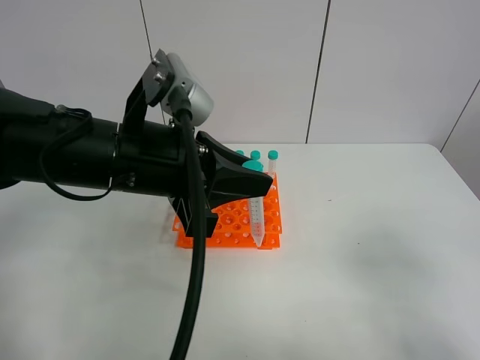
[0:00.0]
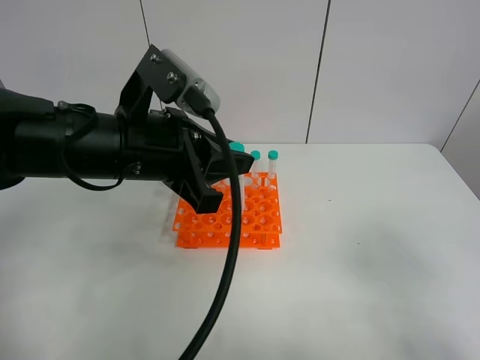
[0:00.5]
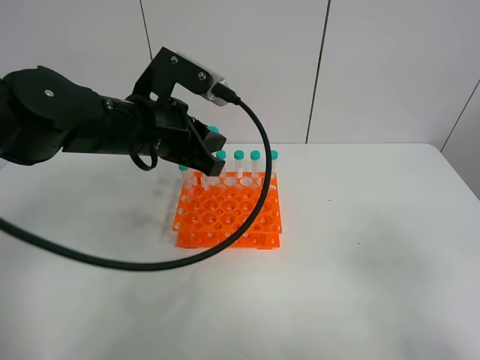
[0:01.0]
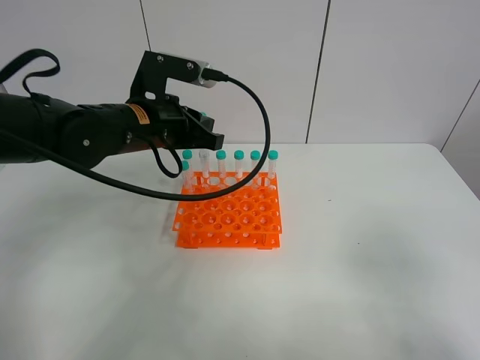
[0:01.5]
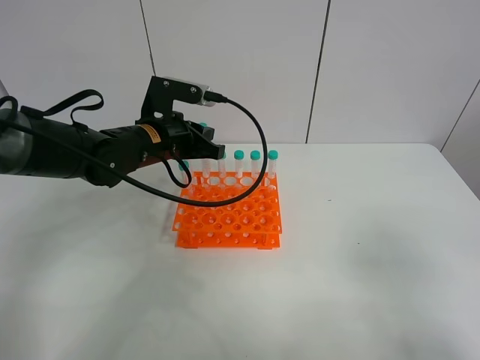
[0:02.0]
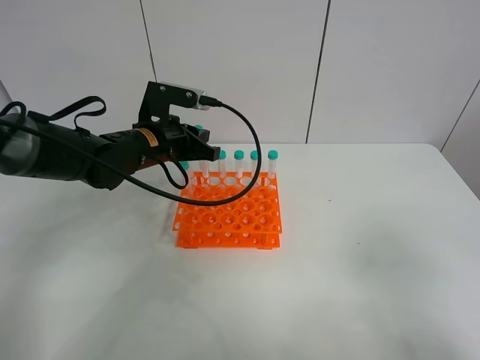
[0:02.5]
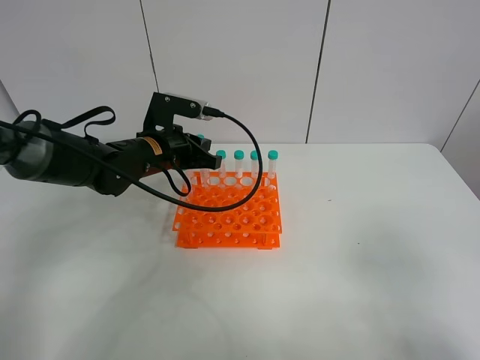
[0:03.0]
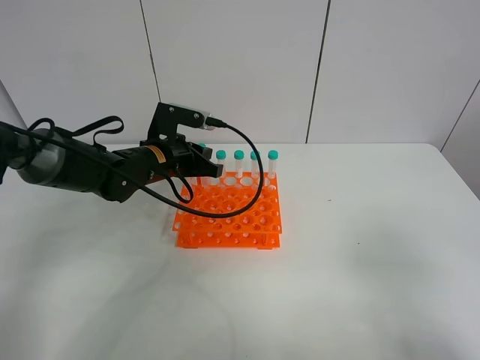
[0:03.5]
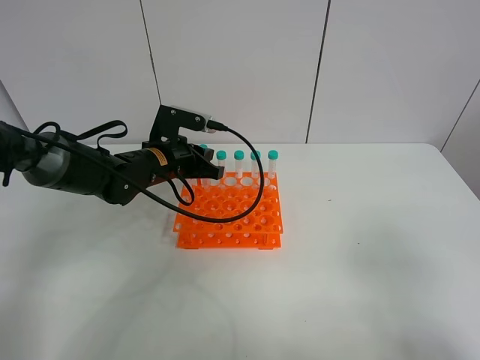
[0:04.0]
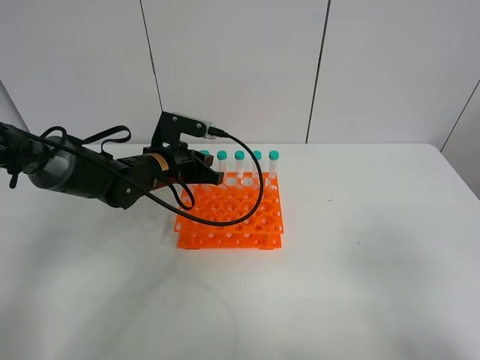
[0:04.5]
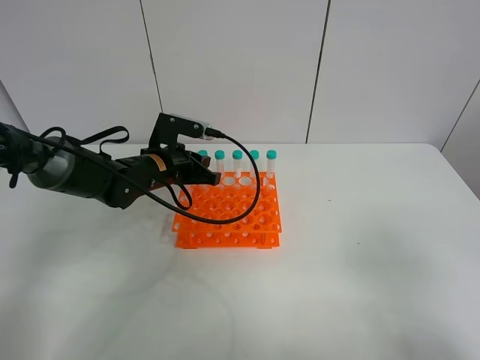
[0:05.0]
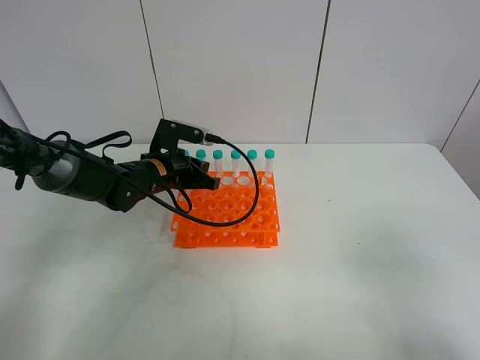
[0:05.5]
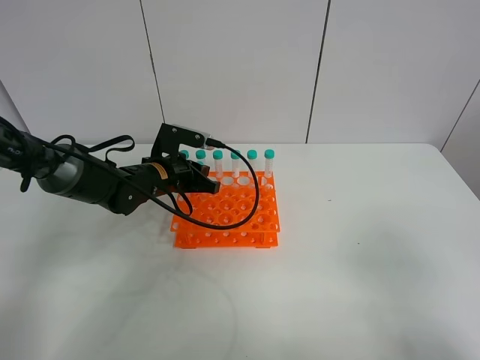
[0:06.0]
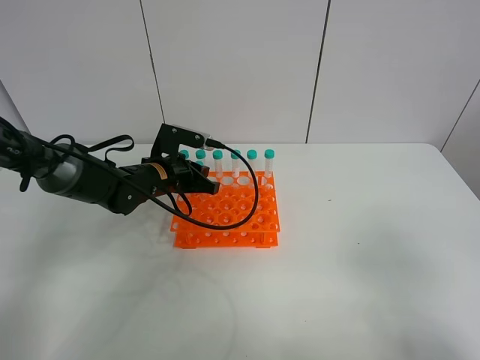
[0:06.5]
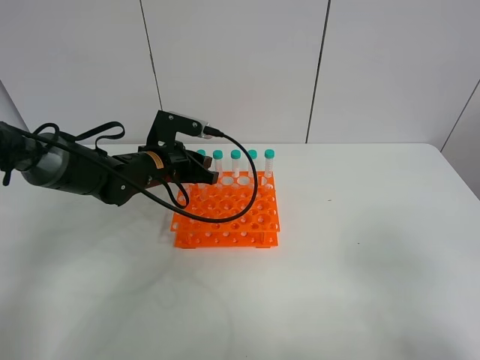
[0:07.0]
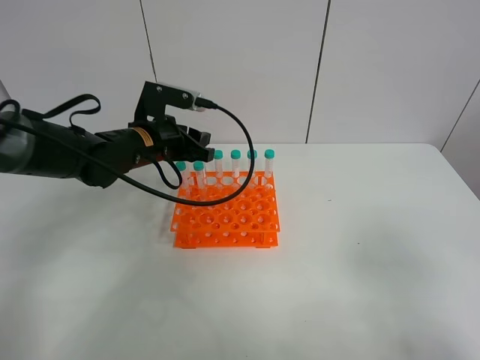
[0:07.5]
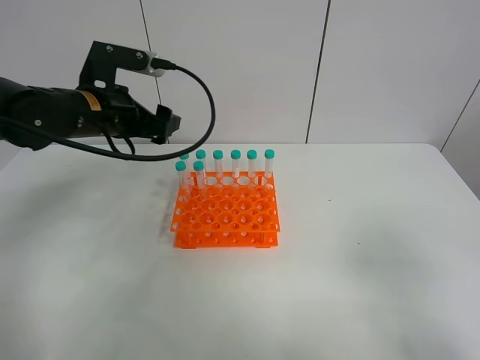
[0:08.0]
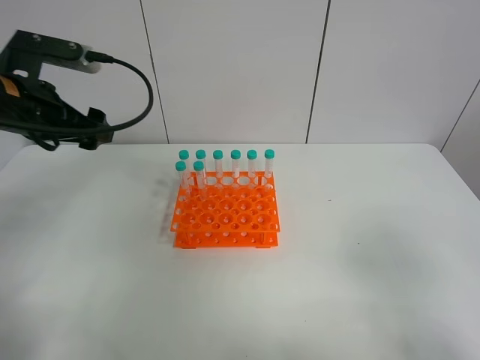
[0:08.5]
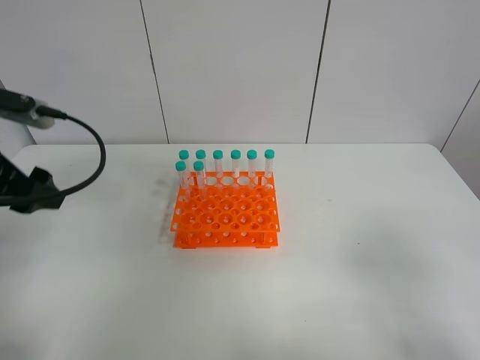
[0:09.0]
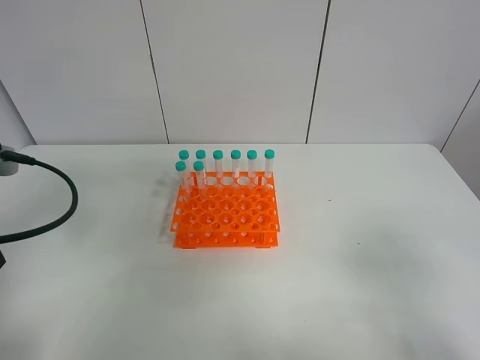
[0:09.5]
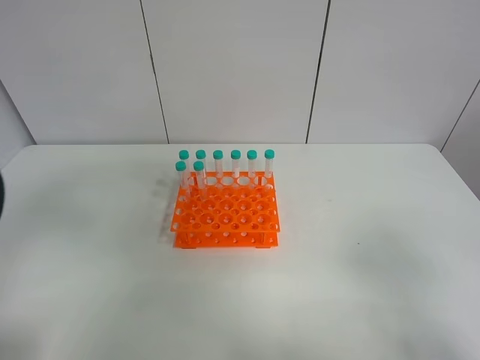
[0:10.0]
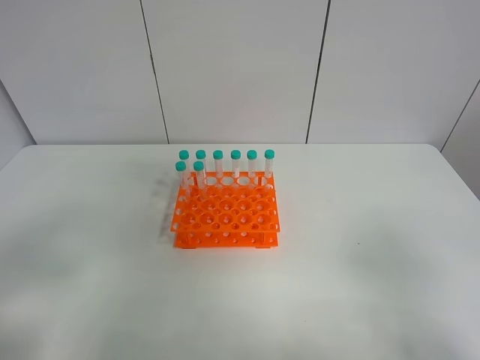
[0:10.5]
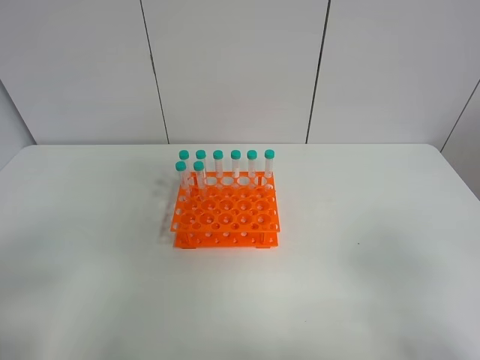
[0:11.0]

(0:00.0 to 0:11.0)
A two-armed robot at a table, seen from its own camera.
Task of the whole recording: Put the test tube on the table back onto the test tube rack.
Step, 0:00.0 - 0:08.0: Place the test tube on the test tube rack with the left gripper.
0:00.0 - 0:02.0: The left gripper goes approximately 15 cm forward and downward.
0:02.0 - 0:03.5: There are only small adjustments of the grippers.
0:03.5 - 0:05.5: The grippers move only a little.
0:05.5 - 0:07.5: The left gripper goes about 10 cm upward, and opens its fingers.
0:07.5 - 0:09.0: The left gripper is displaced to the left, backward and upward by about 20 cm, and opens up.
0:09.0 - 0:11.0: The left gripper heads backward, covering approximately 25 cm.

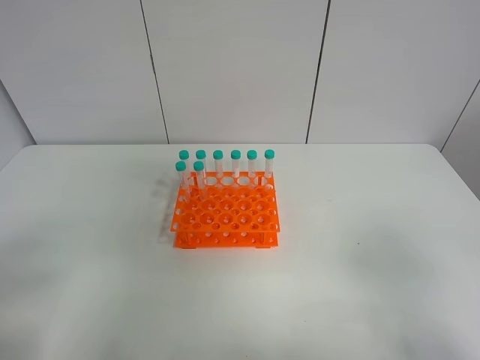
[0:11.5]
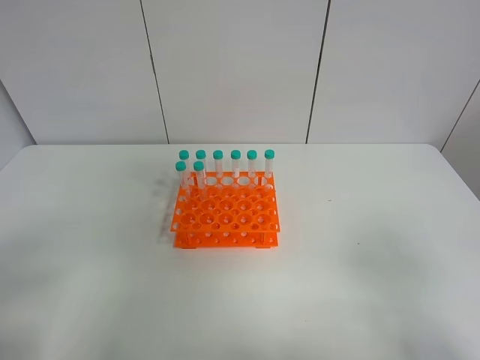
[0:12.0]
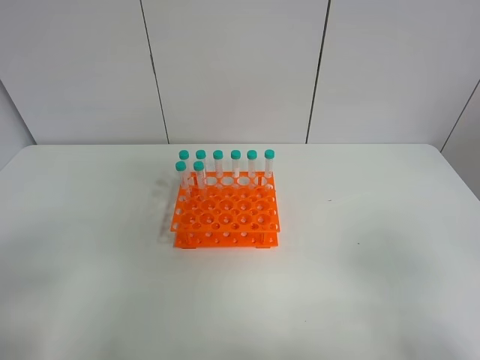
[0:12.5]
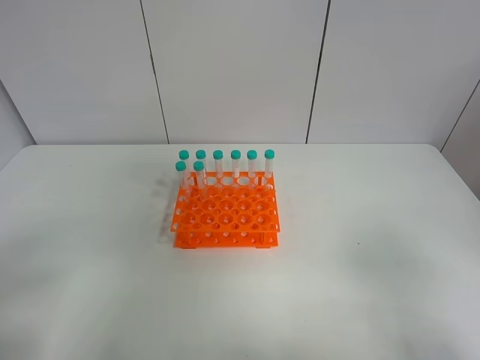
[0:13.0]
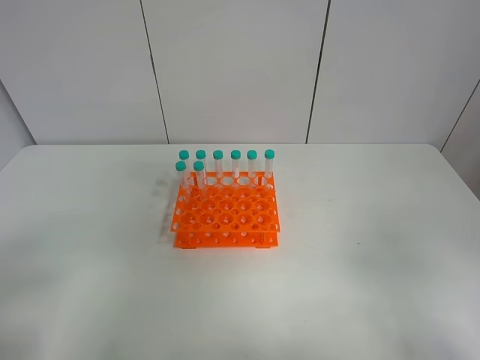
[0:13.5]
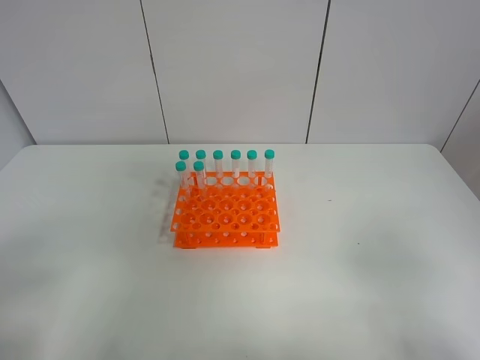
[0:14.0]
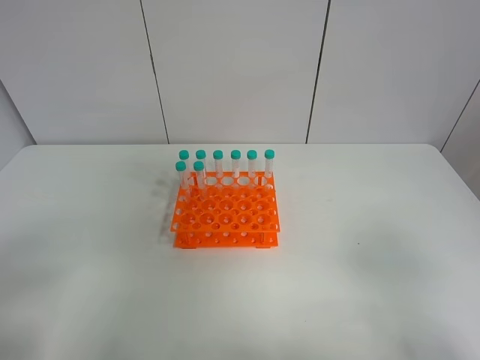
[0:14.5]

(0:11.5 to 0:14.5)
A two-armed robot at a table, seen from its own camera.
Task of the whole recording: Put the test tube on the table back onto the test tube rack.
0:11.5 - 0:14.5: Neither gripper changes place.

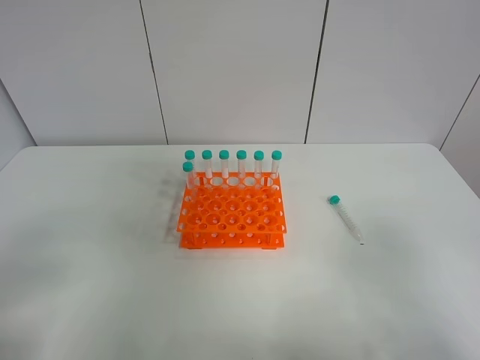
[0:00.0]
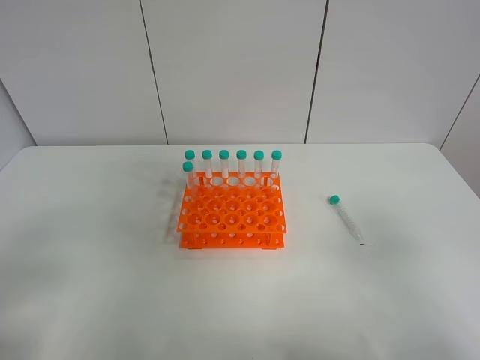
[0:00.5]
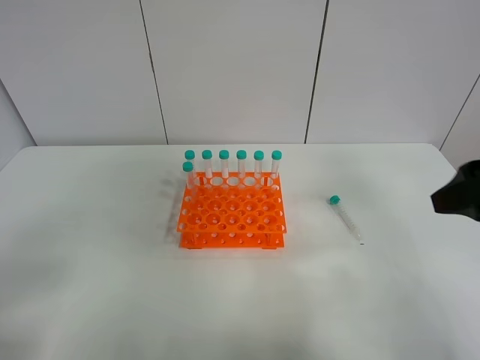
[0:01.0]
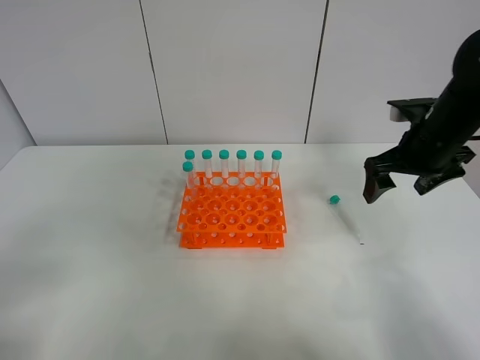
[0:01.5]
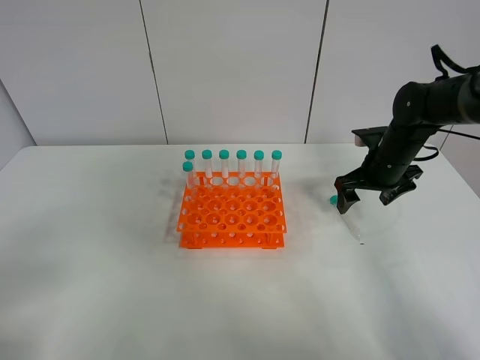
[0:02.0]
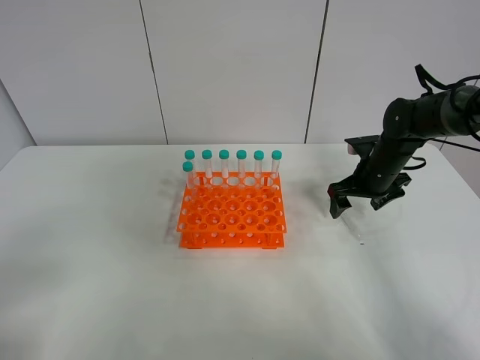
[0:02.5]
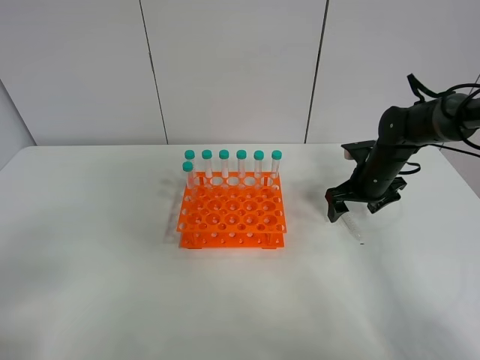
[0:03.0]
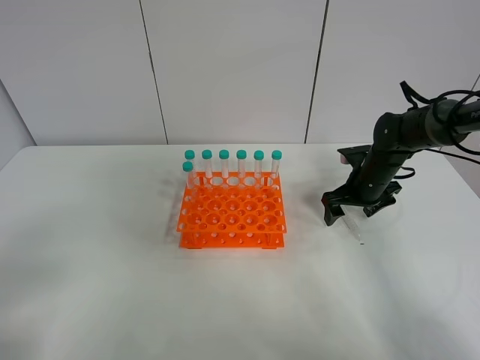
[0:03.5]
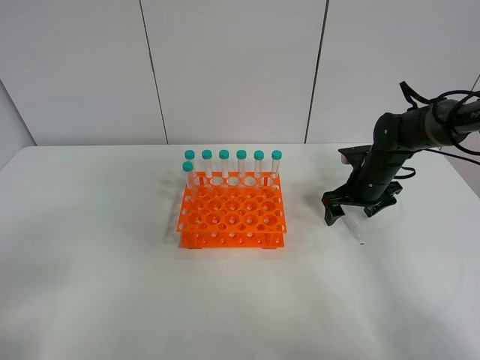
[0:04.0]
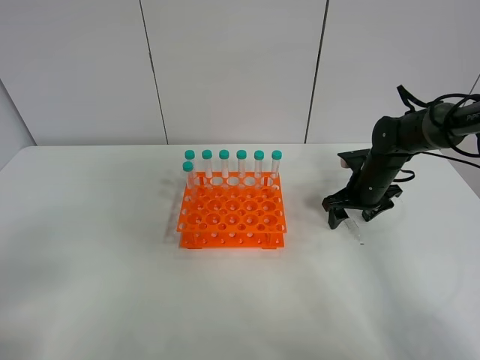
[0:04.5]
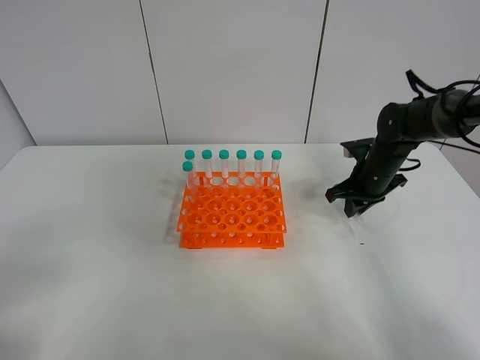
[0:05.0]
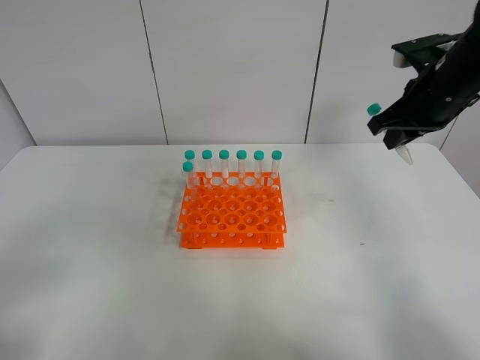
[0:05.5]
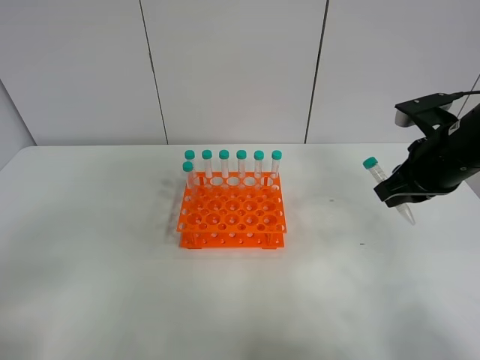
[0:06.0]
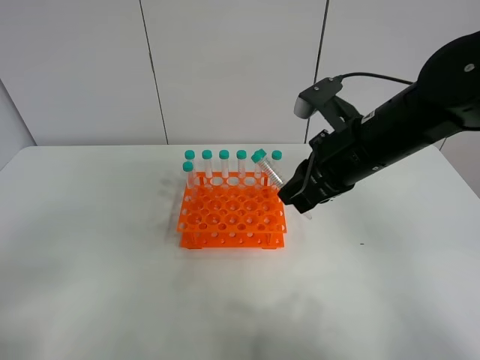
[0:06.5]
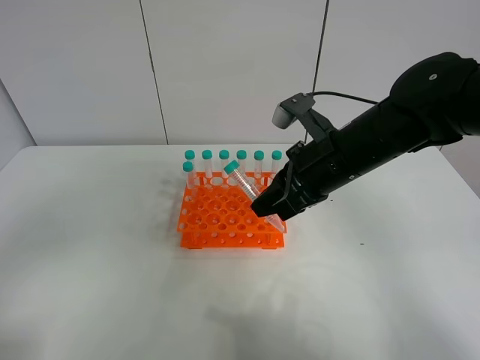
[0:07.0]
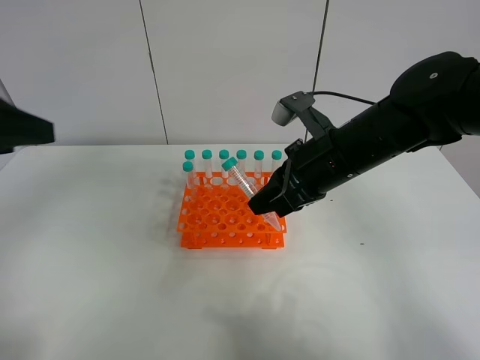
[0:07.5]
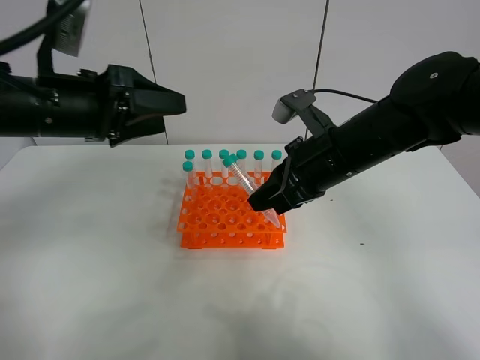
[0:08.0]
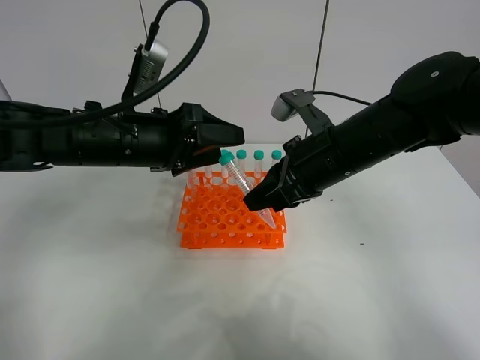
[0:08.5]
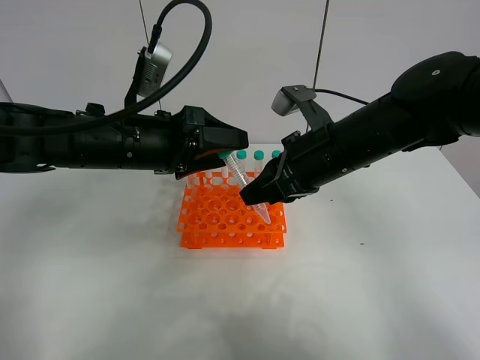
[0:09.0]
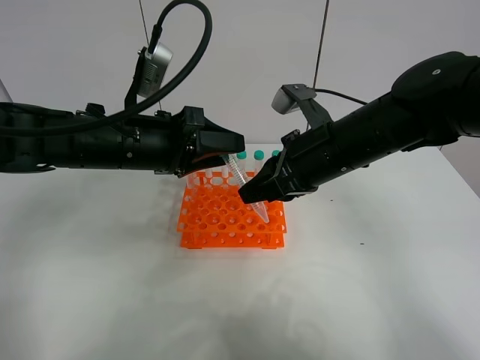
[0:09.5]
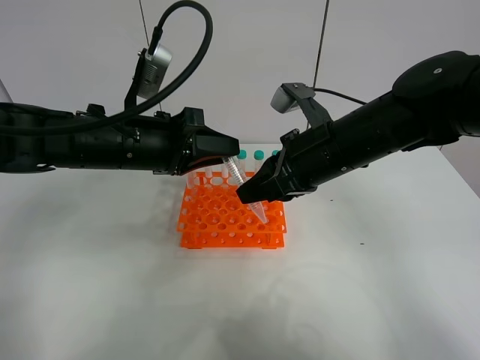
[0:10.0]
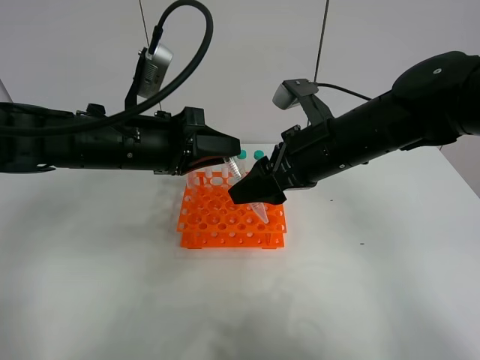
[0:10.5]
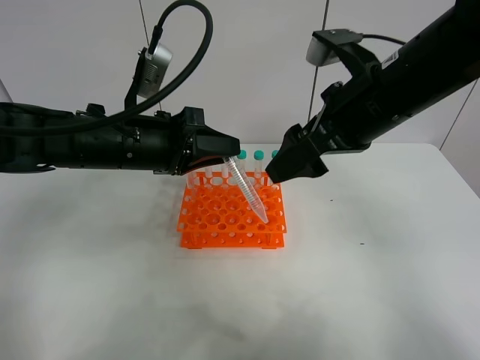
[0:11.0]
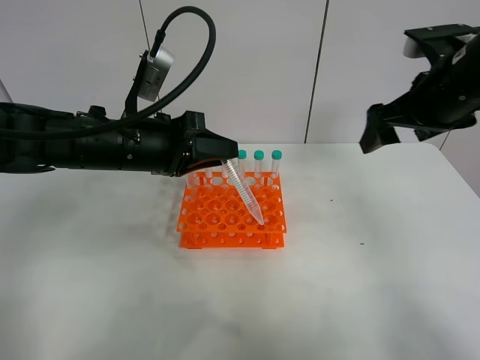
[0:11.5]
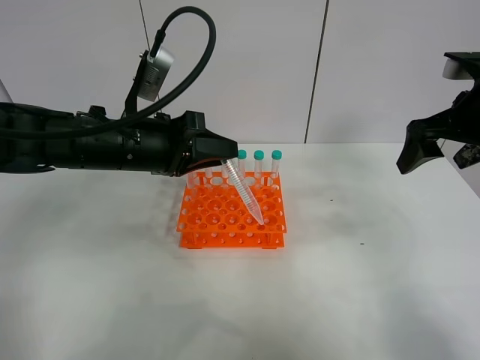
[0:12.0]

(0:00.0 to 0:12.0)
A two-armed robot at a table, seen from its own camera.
Task of the whole recording: Put the test tube on the table back onto the test tube rack.
Step, 0:00.0 - 0:04.5: Pick up the test tube with the right gripper.
Step, 0:05.0 - 0:10.0: Move the test tube from the right gripper to the left gripper.
0:00.0 - 0:02.0: The right gripper goes approximately 40 cm forward.
0:02.0 - 0:04.0: The grippers move only a little.
0:04.0 - 0:06.0: The right gripper goes about 20 cm upward and backward, and closes.
0:06.0 - 0:08.0: The right gripper heads to the left, covering approximately 15 cm; the left gripper travels forward and to the right by some 30 cm.
0:08.0 - 0:10.0: The left gripper goes about 10 cm to the right and downward, and closes its fingers.
0:10.0 - 0:12.0: The right gripper goes some 20 cm to the right, and opens up.
